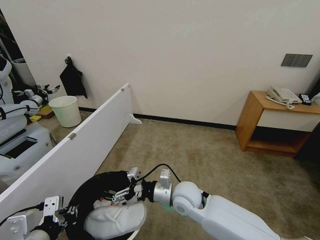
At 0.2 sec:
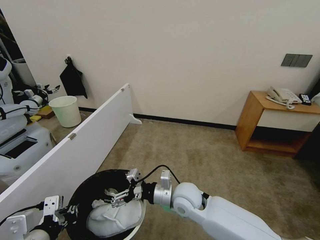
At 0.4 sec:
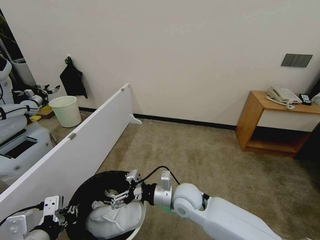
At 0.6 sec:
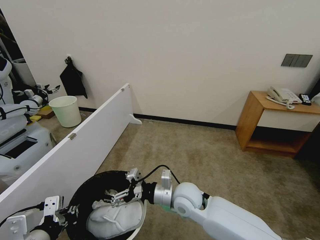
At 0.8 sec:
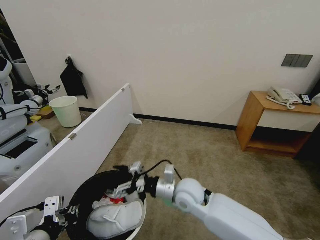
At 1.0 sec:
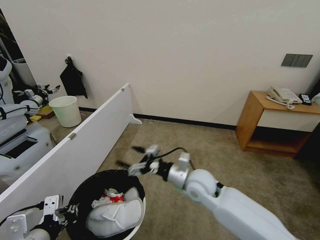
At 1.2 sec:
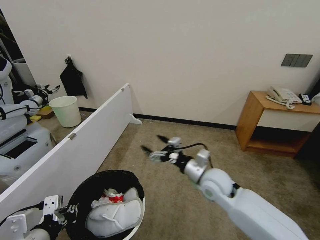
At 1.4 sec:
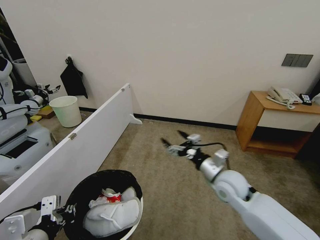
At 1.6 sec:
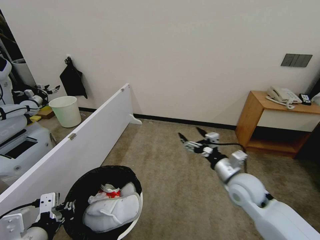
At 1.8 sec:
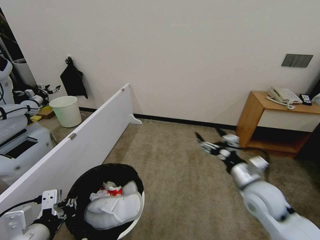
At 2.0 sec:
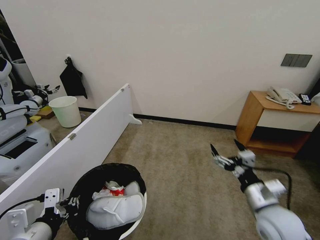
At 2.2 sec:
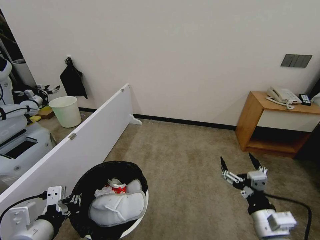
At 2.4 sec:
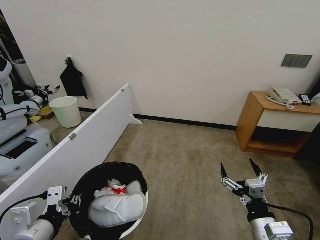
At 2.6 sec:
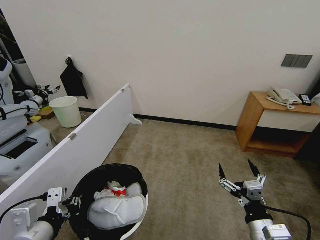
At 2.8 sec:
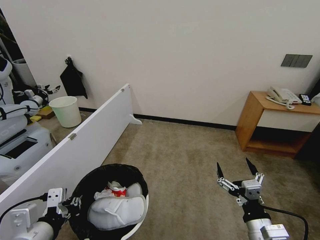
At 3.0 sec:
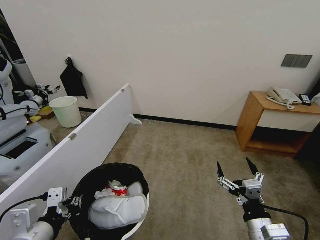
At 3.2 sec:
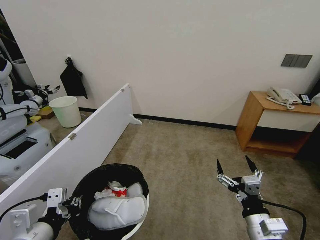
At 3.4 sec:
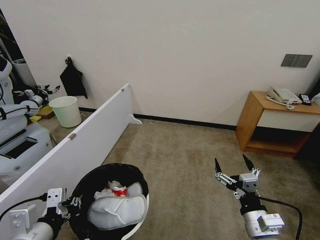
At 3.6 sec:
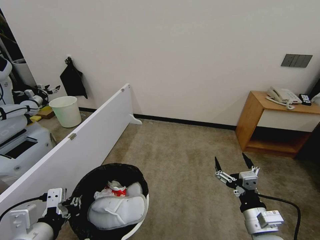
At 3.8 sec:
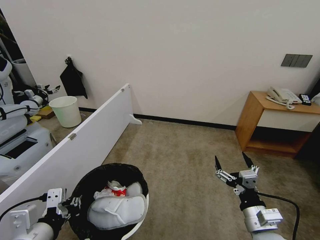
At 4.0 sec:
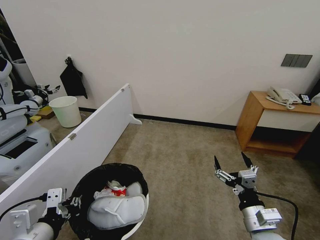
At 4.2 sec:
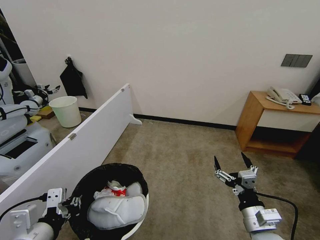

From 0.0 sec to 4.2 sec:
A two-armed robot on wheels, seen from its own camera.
Task of the whole recording: Pick up the trash bin, then pick up the garbage from the floor and place it into the trash bin.
From 0.0 sec to 1.4 sec: The right gripper shifts about 15 cm to the right.
From 1.4 sec to 2.8 sec: The right gripper is displaced backward by roughly 20 cm.
From 2.8 sec to 4.2 sec: The grippers make only small movements.
